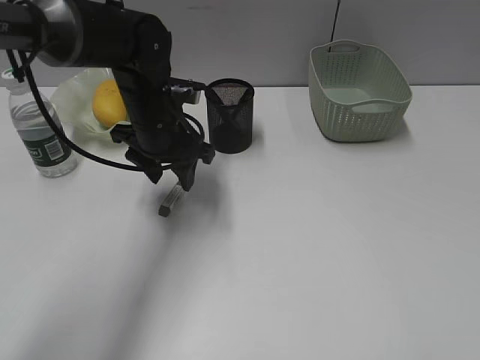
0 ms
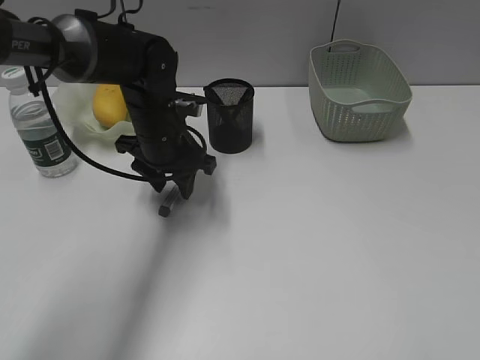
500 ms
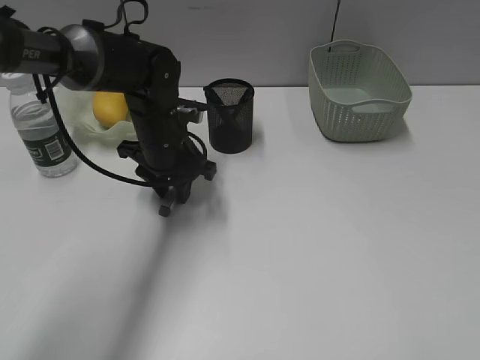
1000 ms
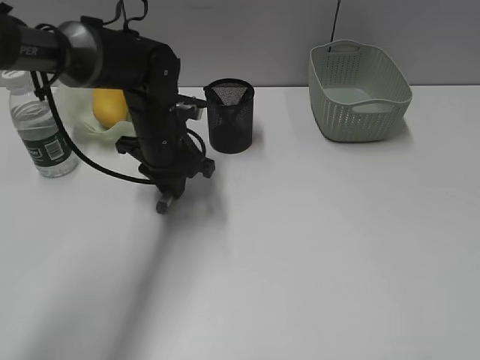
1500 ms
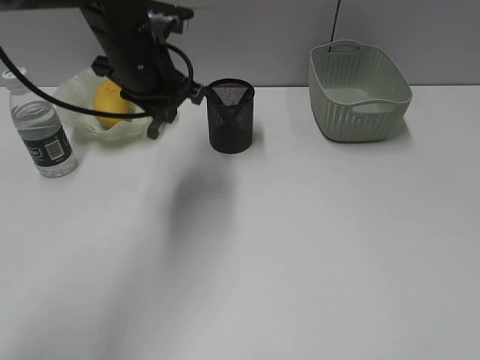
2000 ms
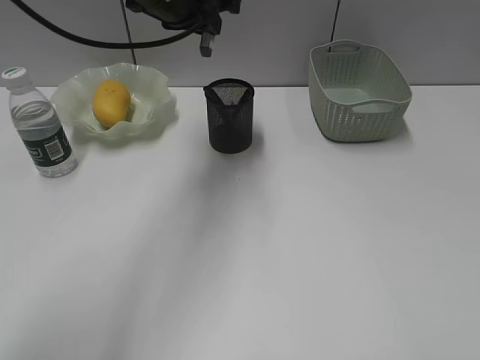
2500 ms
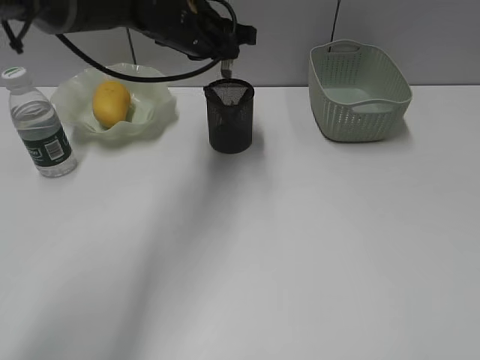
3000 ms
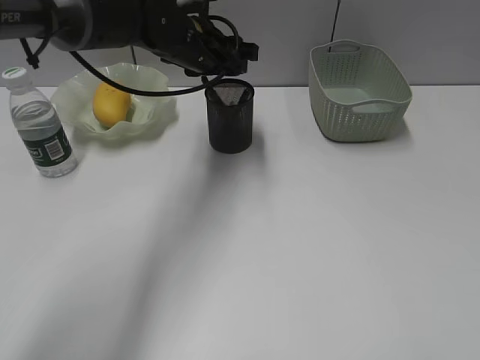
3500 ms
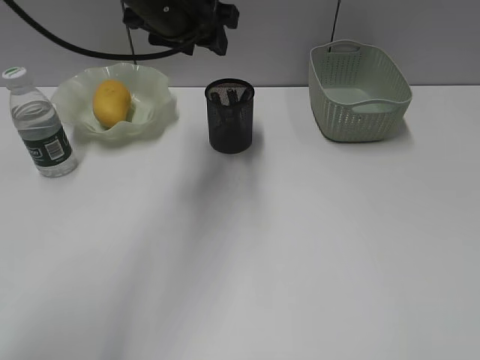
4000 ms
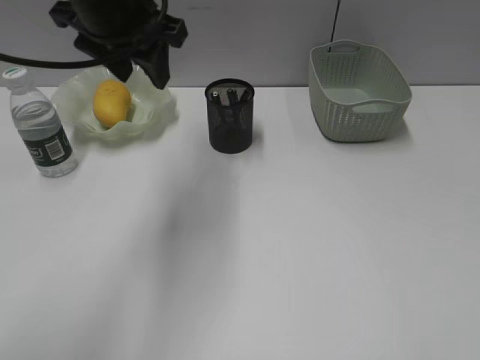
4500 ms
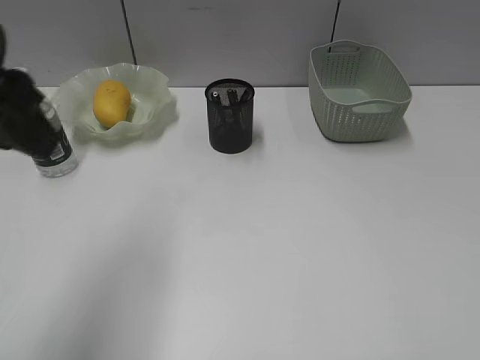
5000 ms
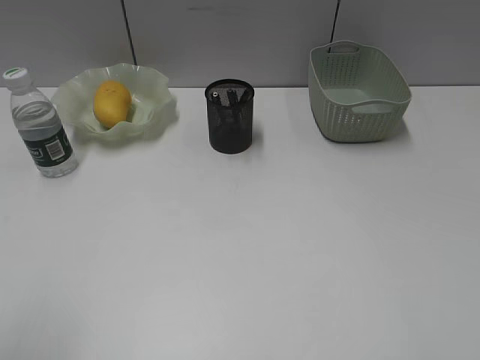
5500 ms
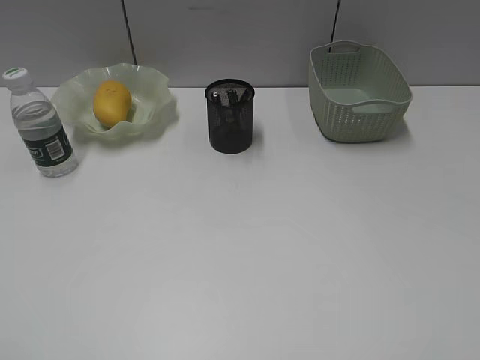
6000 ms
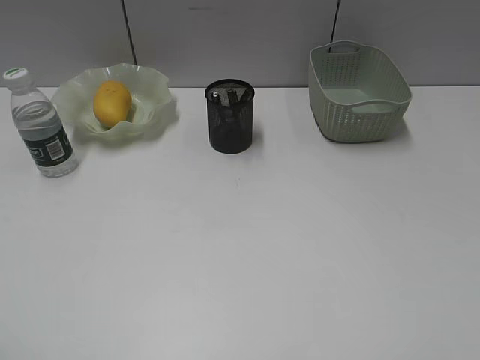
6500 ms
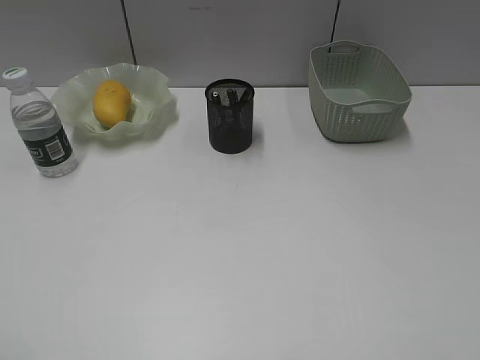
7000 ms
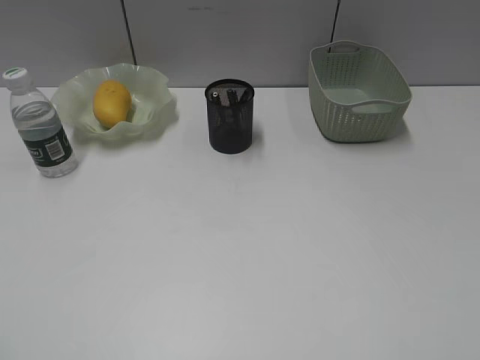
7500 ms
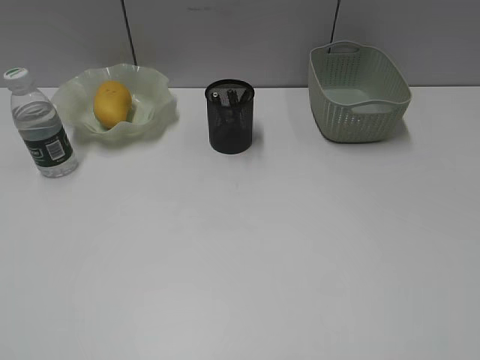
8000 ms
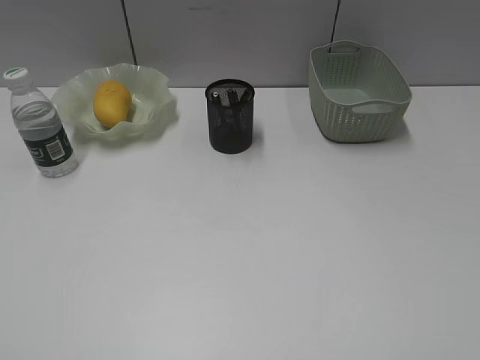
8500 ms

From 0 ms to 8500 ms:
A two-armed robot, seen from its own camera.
Step, from 1500 ms to 3500 ms: Place the eraser in pen holder with left gripper.
From 0 ms to 2000 ms: The left gripper moves upward, roughly 5 cm, and closes.
From 2000 ms to 4000 ms: The left gripper moves up and down over roughly 10 cm, changing direction 2 times, and opens up.
From 4000 ms to 6500 ms: The left gripper moves backward and to the left, some 50 cm.
